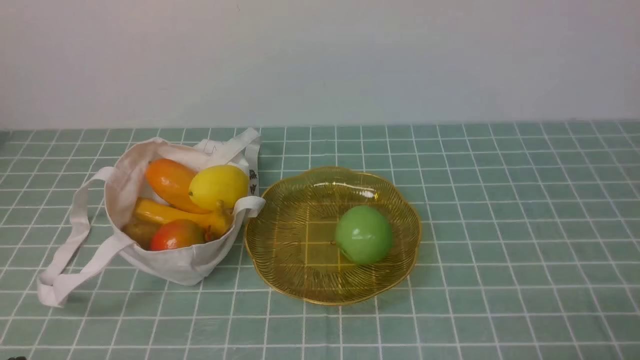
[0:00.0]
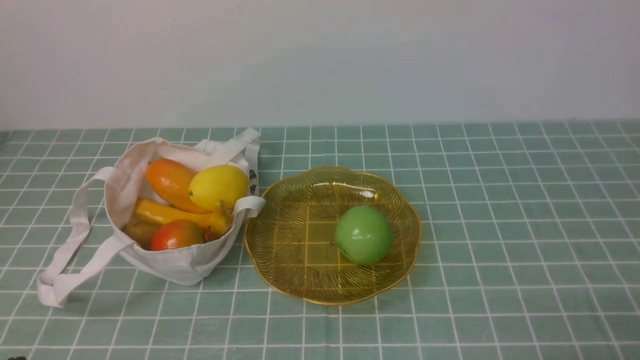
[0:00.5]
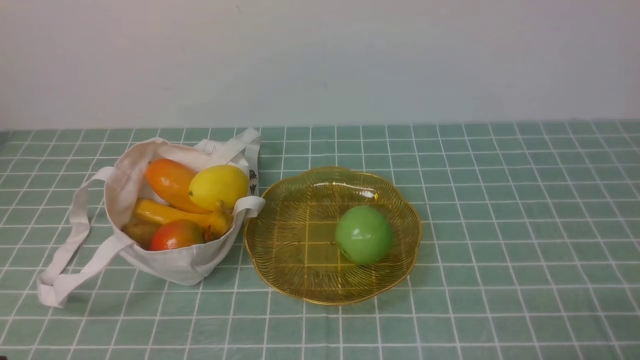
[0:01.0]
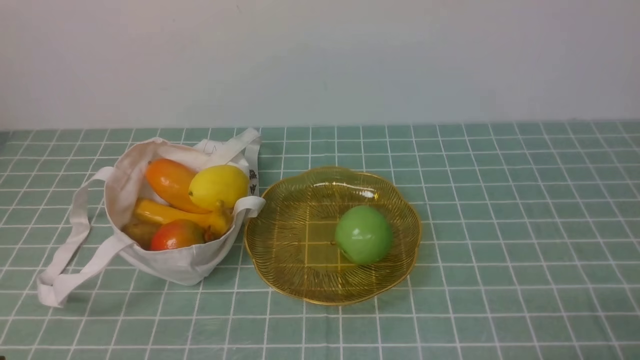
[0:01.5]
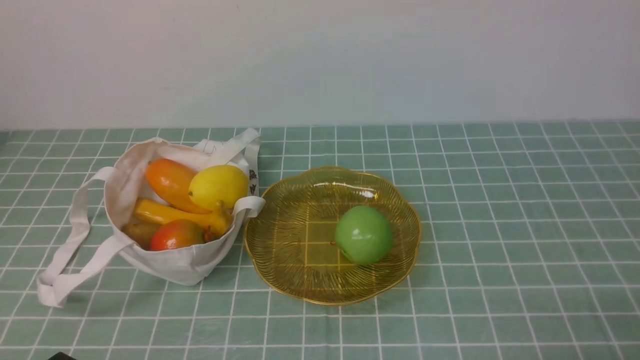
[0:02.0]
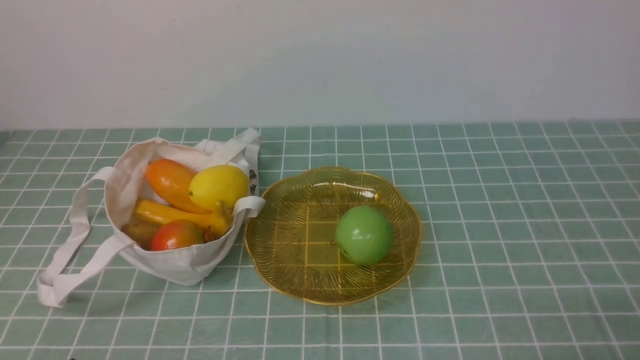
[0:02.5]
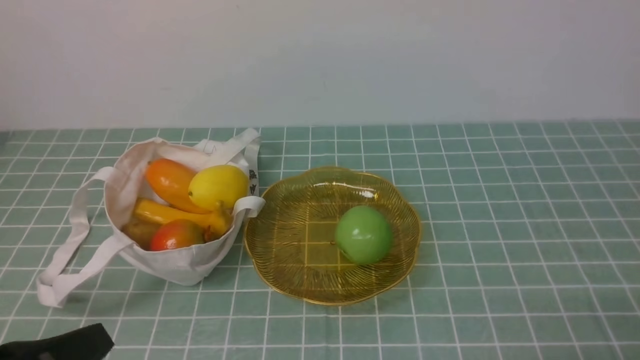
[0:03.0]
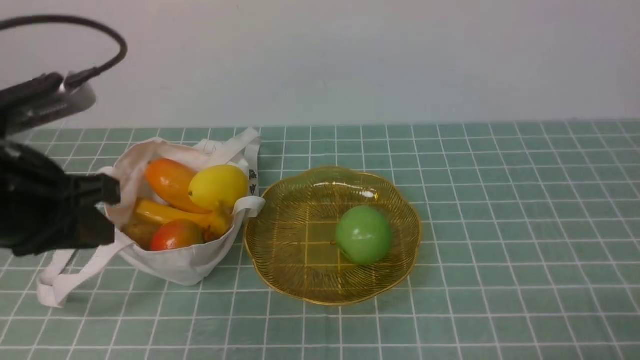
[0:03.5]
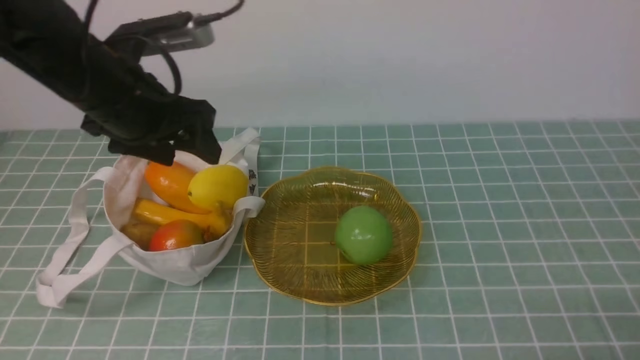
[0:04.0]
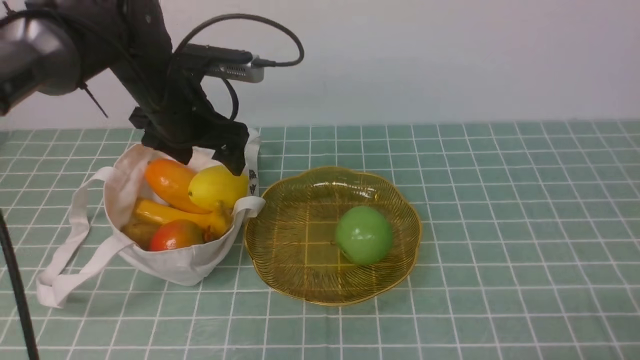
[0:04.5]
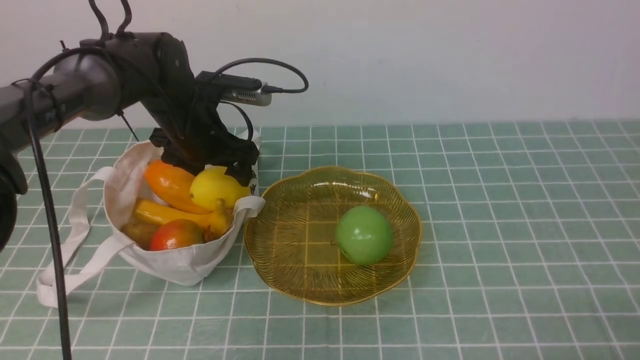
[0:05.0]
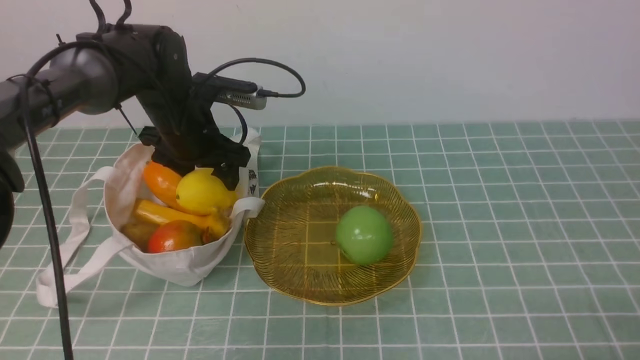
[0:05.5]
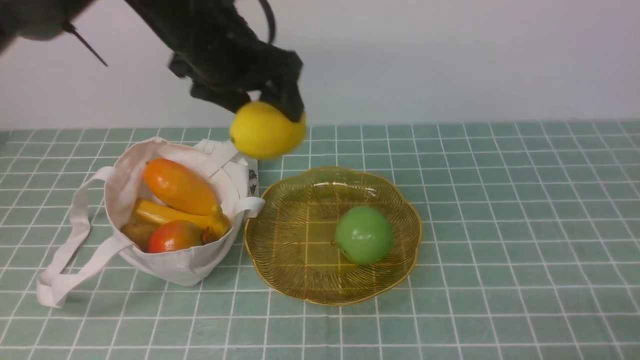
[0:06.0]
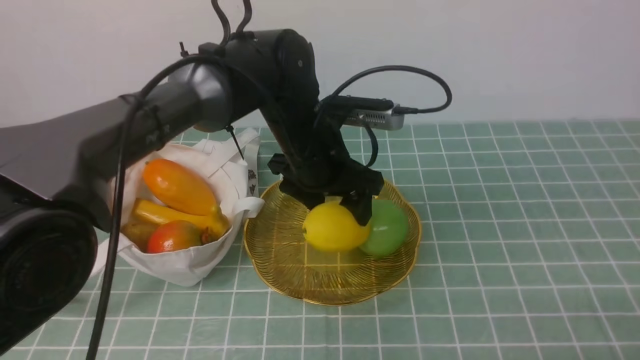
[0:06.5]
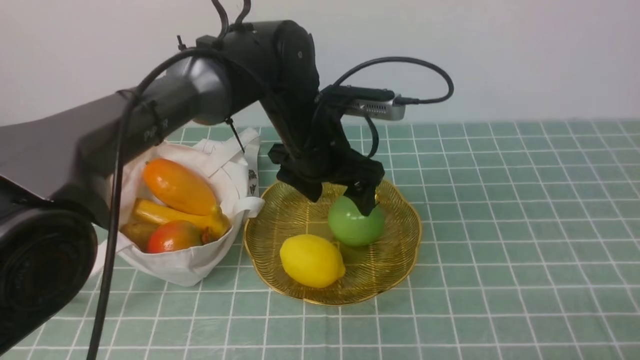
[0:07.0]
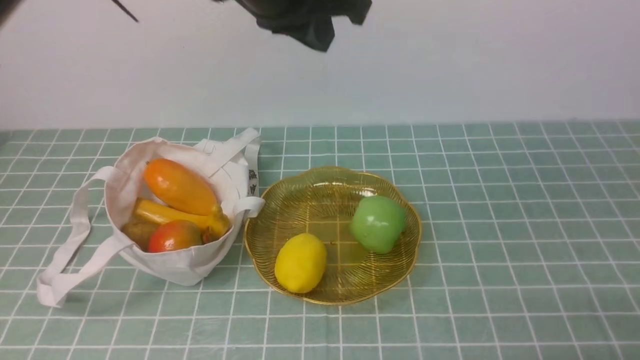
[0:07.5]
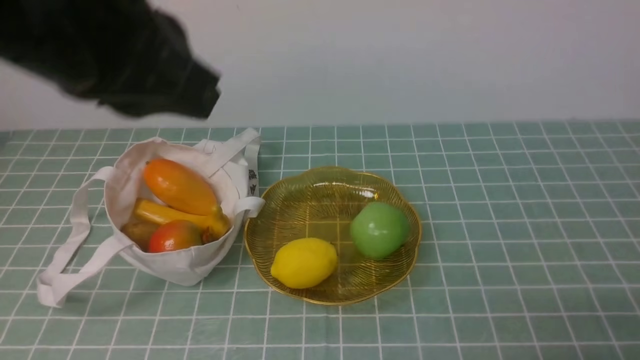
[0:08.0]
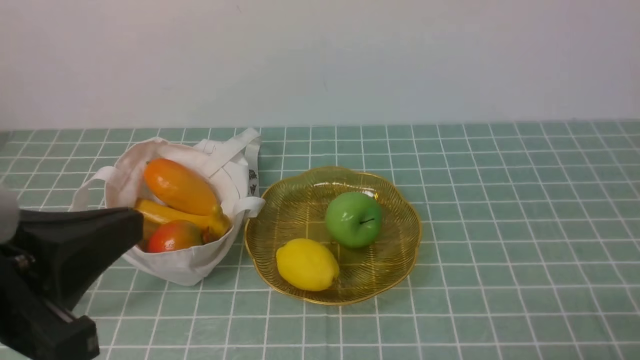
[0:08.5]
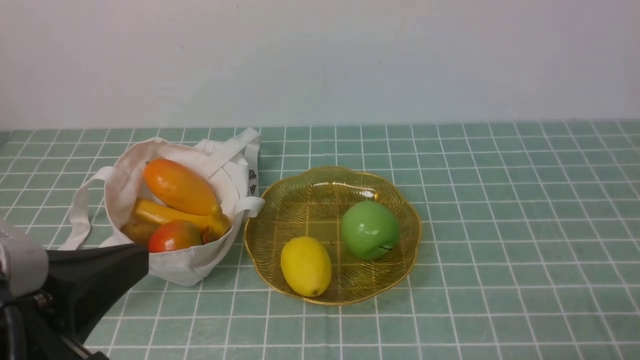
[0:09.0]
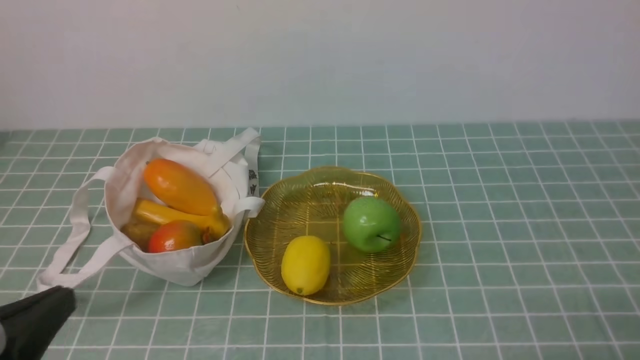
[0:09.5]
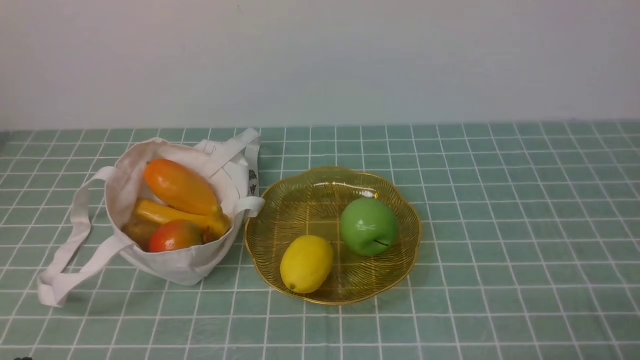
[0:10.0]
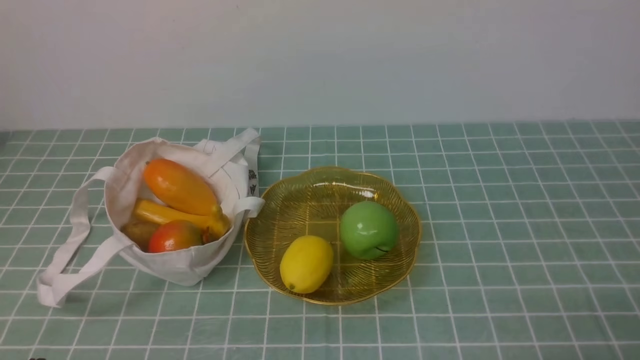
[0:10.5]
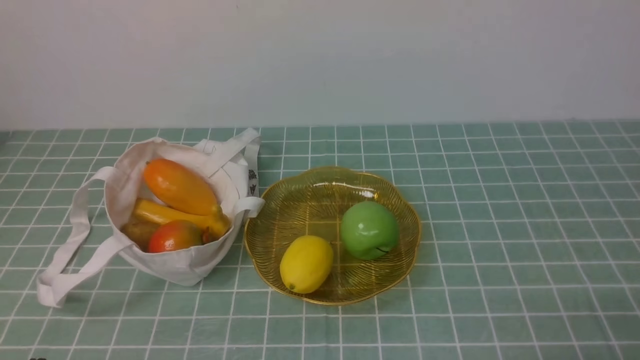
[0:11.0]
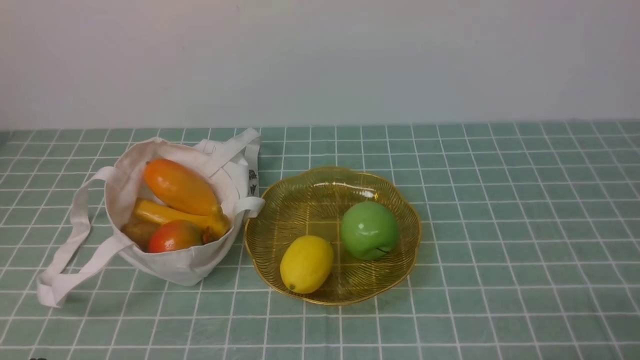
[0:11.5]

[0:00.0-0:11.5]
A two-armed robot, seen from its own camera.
Step, 0:00.0 to 0:05.5: use the left arm to grab a lemon from the bag.
Step, 0:06.0 to 0:06.5: use the left arm to put the lemon into the empty plate on the right.
0:02.0 to 0:04.0: The left gripper is displaced forward and upward by roughly 30 cm, and opens.
0:04.0 to 0:06.0: The left gripper shifts about 10 cm to the right and forward.
0:06.0 to 0:07.5: The left gripper travels to the right and upward by roughly 10 cm, and closes its fingers.
0:07.5 to 0:09.5: The left gripper heads backward, to the left and downward, covering some 35 cm.
0:09.5 to 0:11.5: The left gripper shifts approximately 10 cm downward.

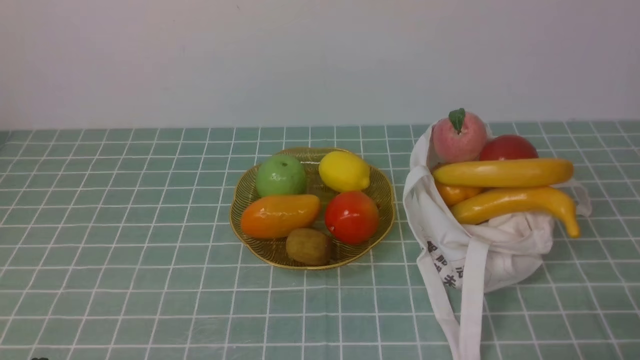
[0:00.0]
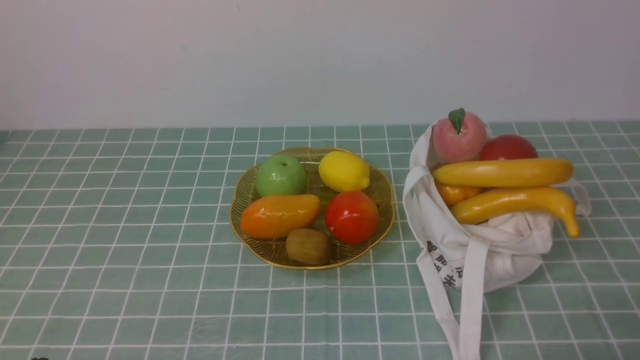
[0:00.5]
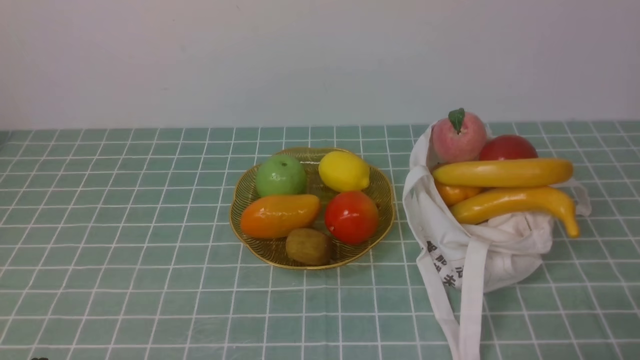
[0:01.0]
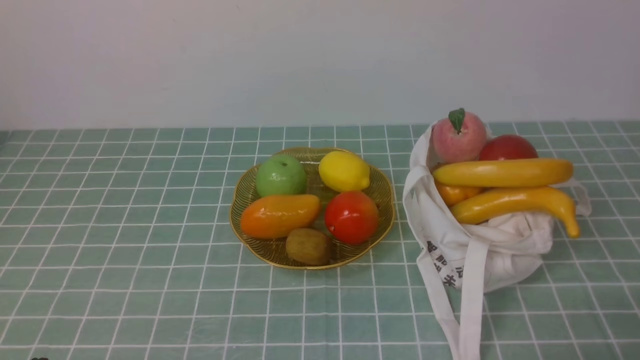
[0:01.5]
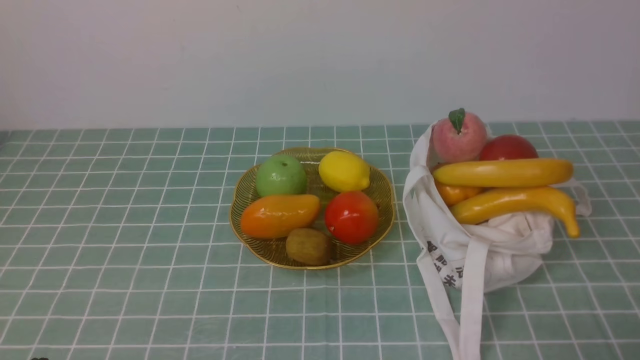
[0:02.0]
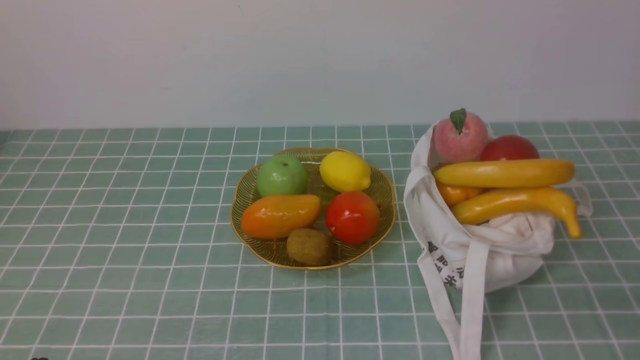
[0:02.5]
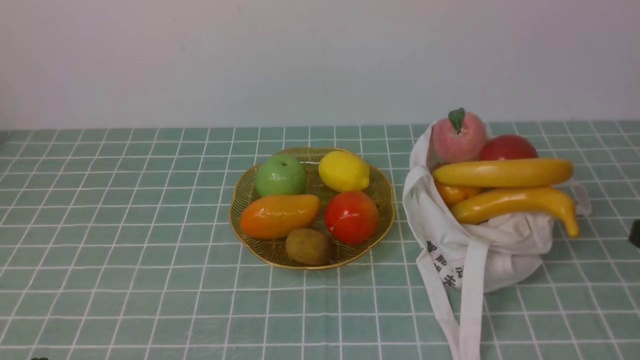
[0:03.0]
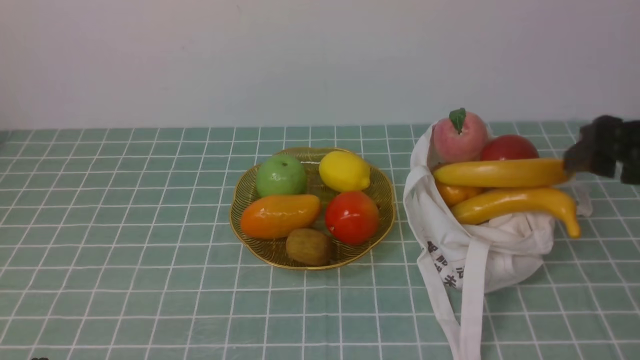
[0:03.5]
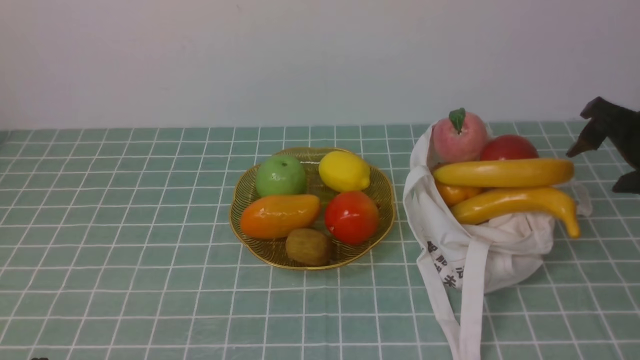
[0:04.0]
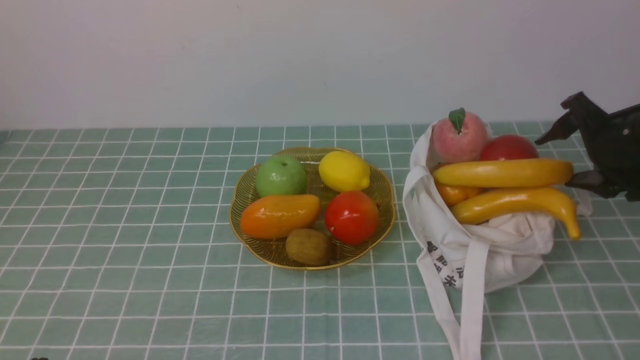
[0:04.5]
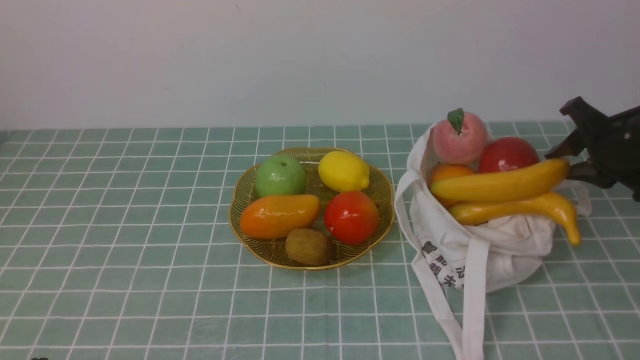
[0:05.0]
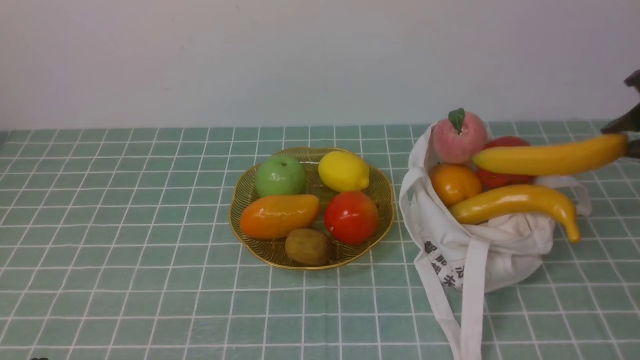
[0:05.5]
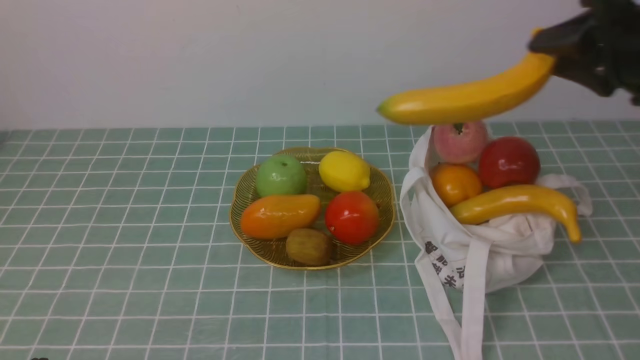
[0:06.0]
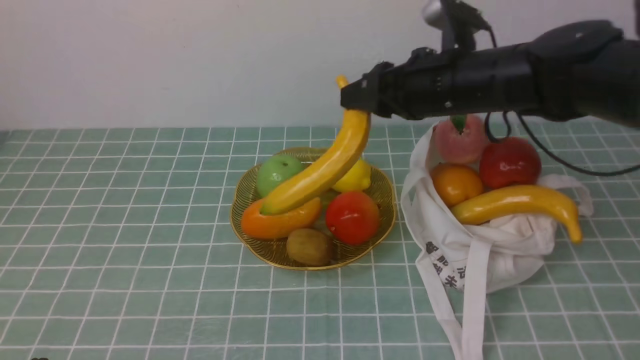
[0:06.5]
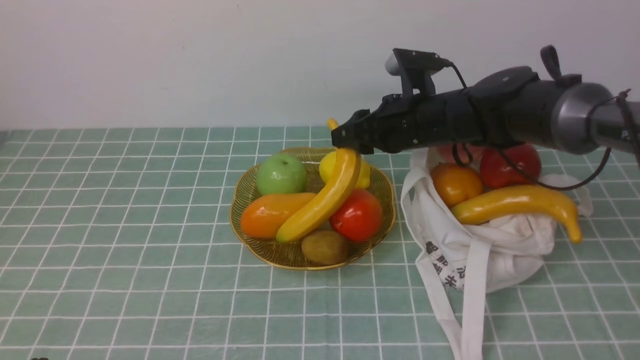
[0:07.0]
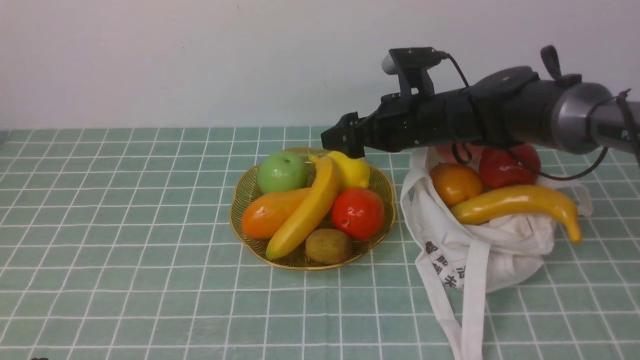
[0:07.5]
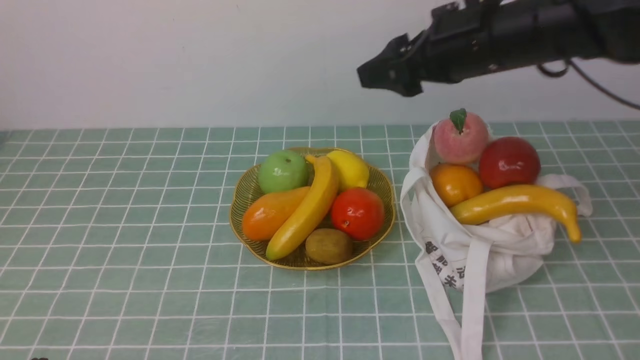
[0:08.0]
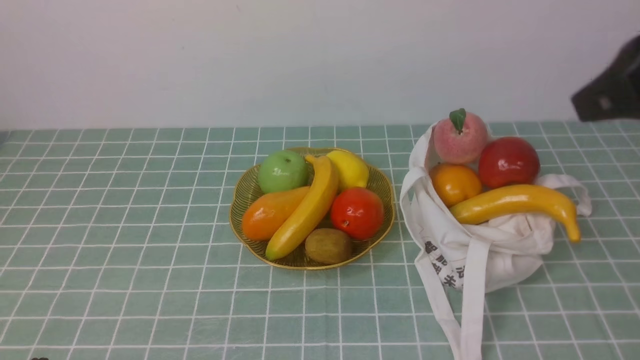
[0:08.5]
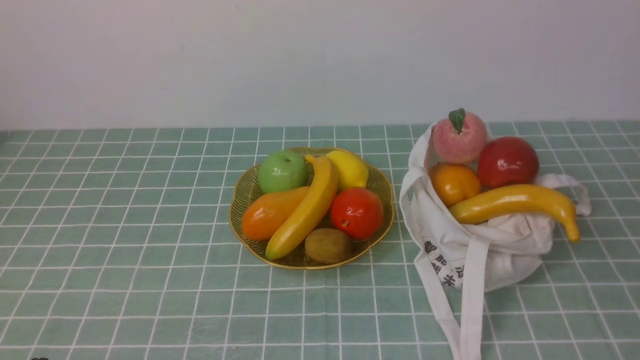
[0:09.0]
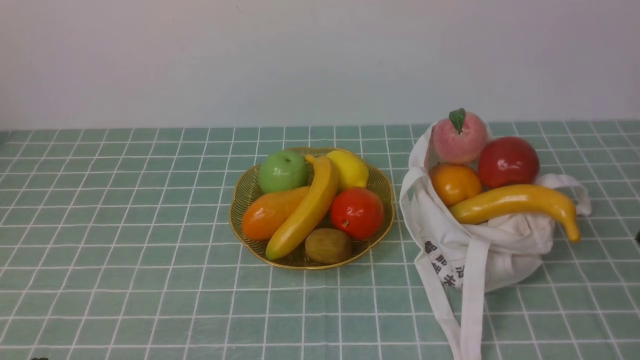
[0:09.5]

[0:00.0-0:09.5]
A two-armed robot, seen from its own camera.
Step, 0:00.0 to 0:05.0: use the right arm to grab a banana from the bag.
Step, 0:05.5 to 0:07.0: use the right arm to put the banana into the empty plate on the right.
0:02.0 to 0:04.0: The right gripper travels forward by some 30 cm, and opens.
0:04.0 to 0:05.5: The right gripper closes its fingers.
0:05.5 to 0:07.5: The right gripper travels to the left by some 25 cm, and opens its fingers.
0:07.5 to 0:09.5: The right gripper moves backward and to the right, about 35 cm, and closes.
